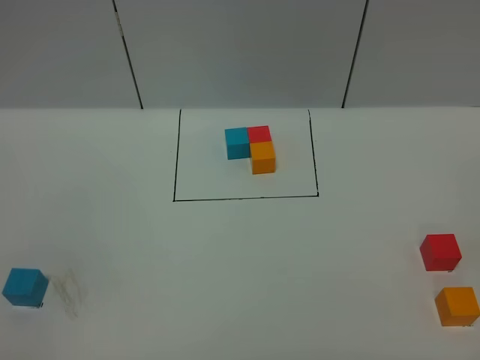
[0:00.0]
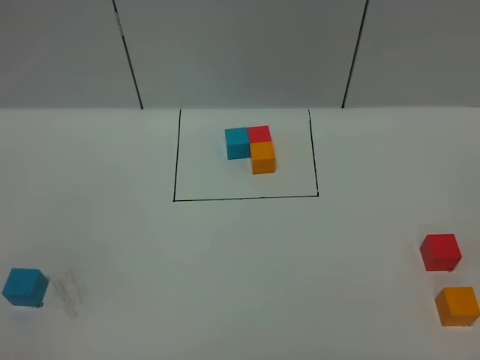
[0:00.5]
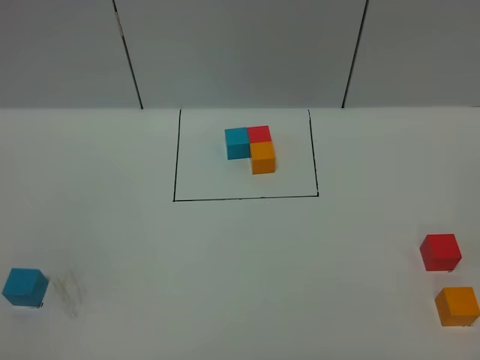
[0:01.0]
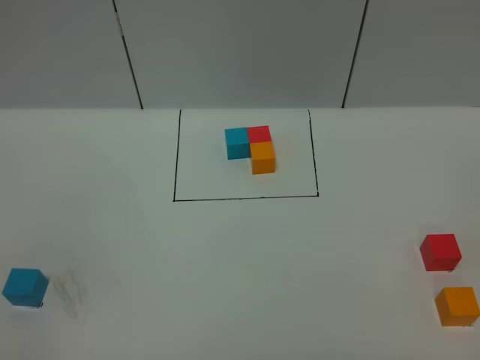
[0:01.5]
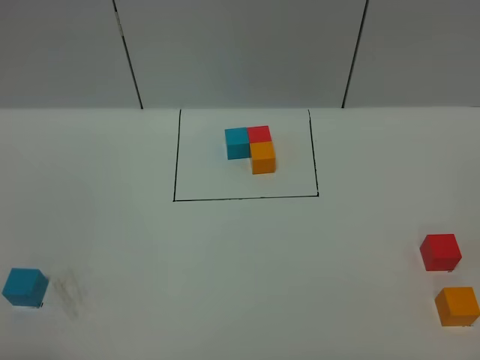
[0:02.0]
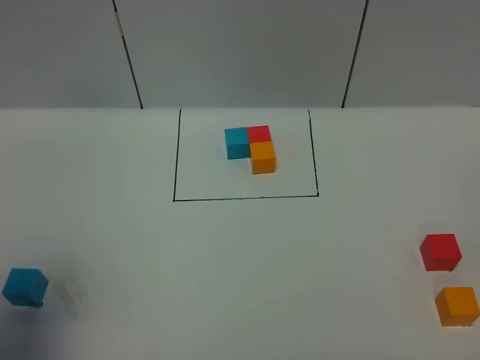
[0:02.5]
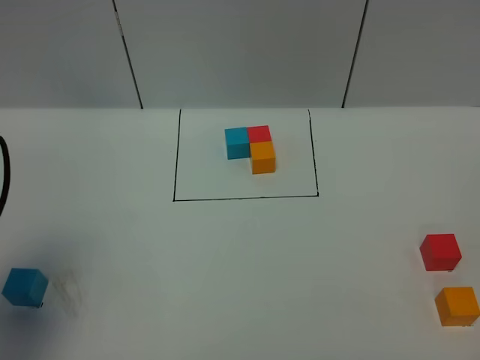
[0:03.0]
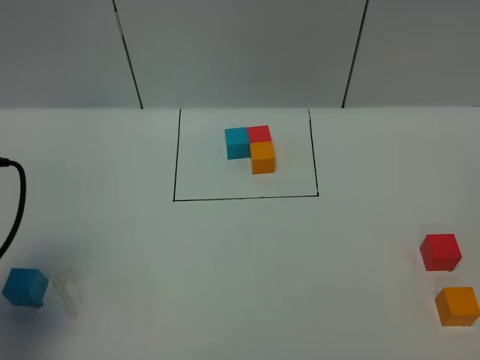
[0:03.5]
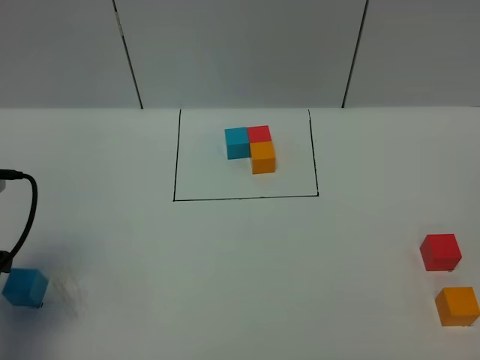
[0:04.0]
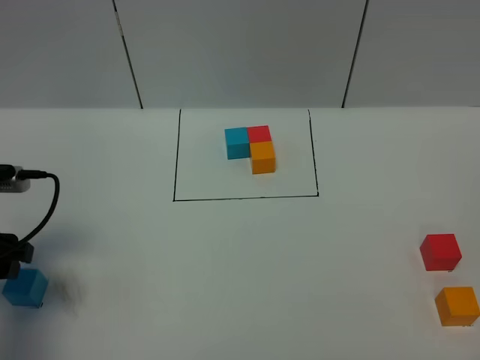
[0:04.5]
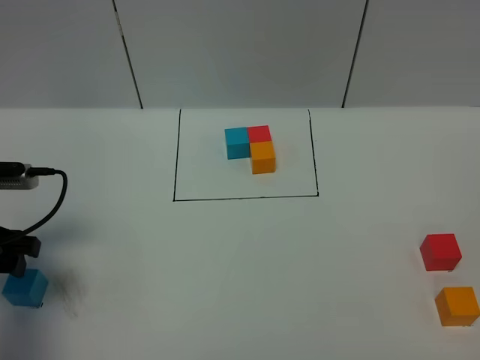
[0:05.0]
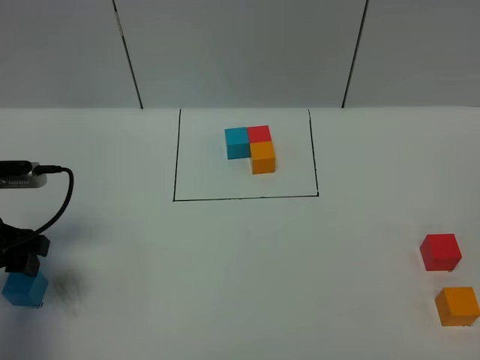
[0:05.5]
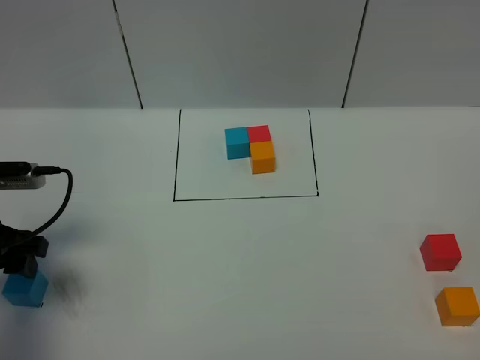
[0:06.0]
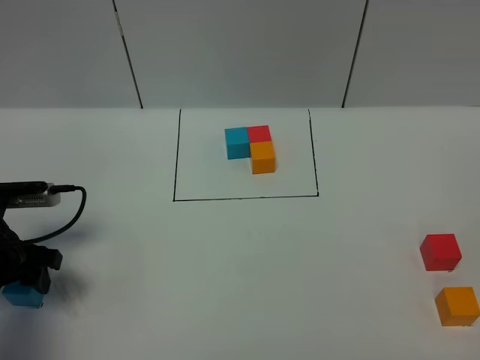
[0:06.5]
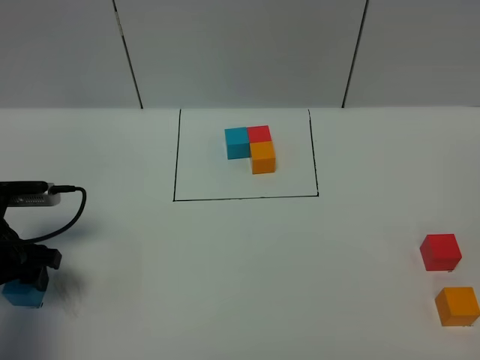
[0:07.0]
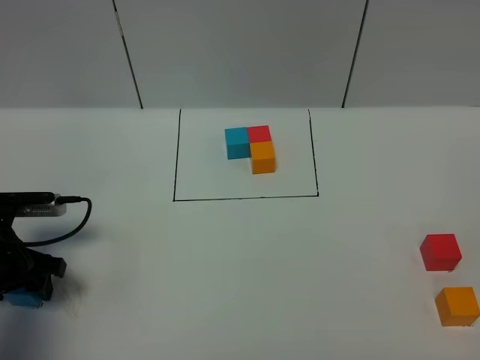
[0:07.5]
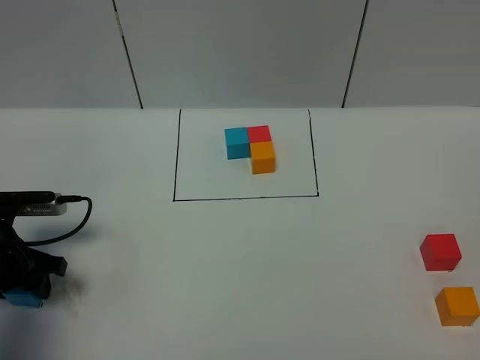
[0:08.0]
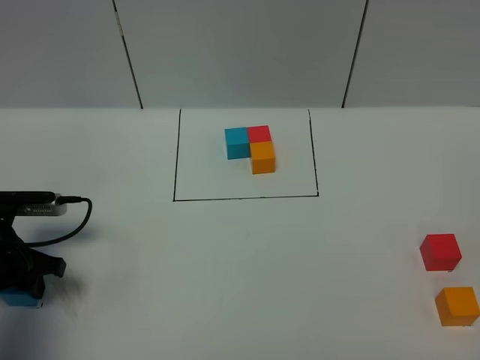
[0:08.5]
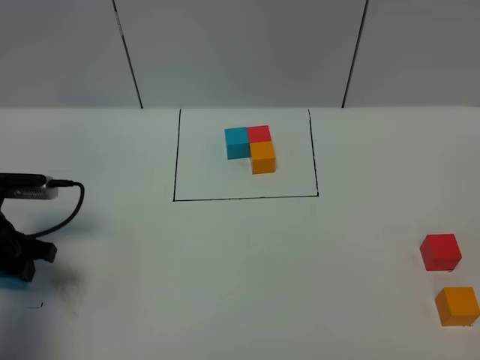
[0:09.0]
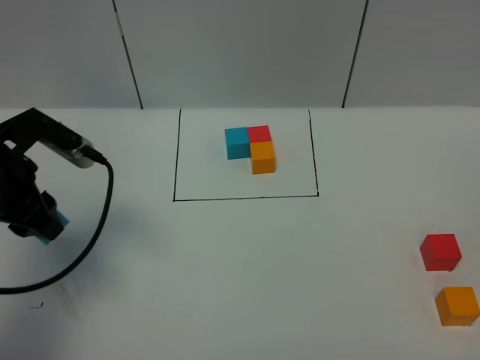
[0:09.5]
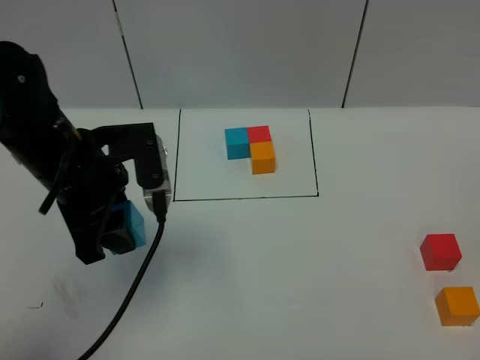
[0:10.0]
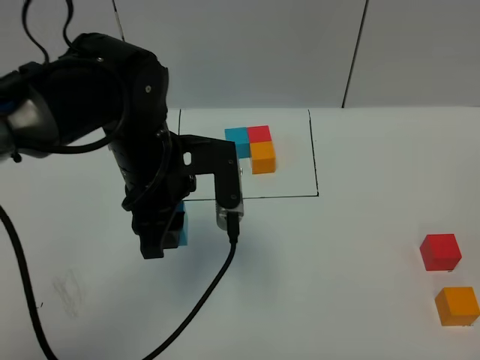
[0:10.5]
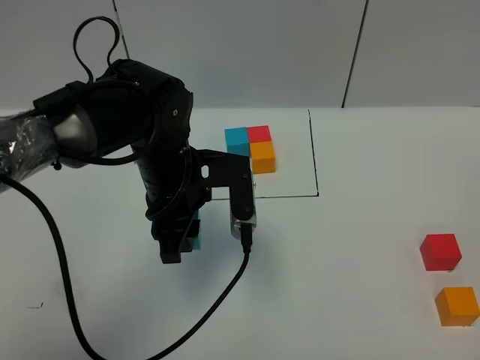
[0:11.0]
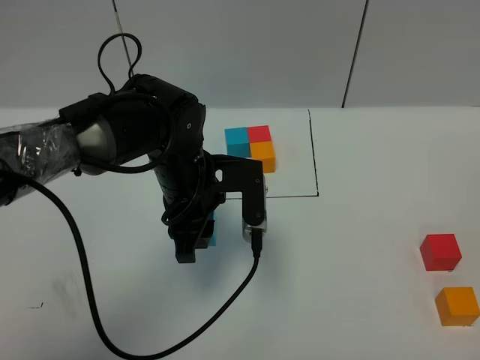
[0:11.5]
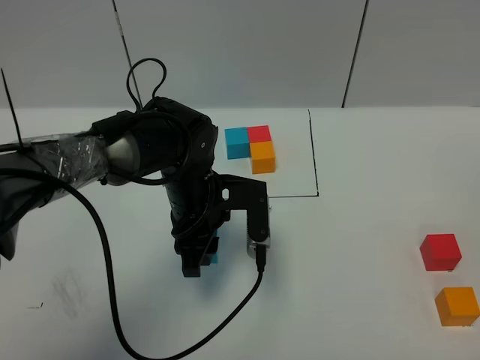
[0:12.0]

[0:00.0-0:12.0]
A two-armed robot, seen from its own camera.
Task of the whole recording: According to the building block template in front, assemble the scattered blocks together.
0:02.0 to 0:04.0: The left gripper moves forward and downward, about 20 cm.
0:04.0 to 0:06.0: The left gripper goes about 5 cm forward.
0:06.0 to 0:08.0: The left gripper heads downward, covering roughly 5 cm.
0:08.0 to 0:10.0: The left gripper moves to the right and upward, some 20 cm, and closes its fingers.
0:10.0 to 0:12.0: The left gripper goes approximately 15 cm to the right and downward.

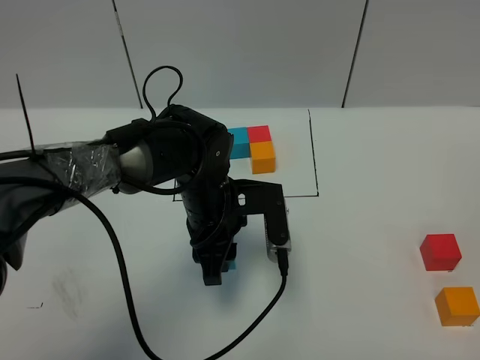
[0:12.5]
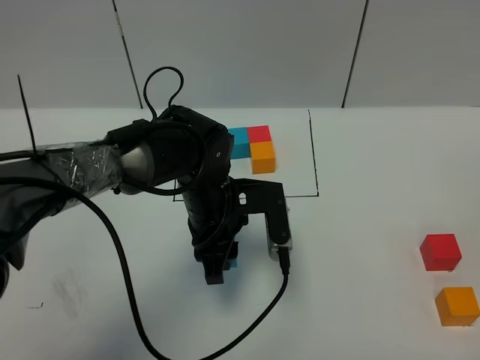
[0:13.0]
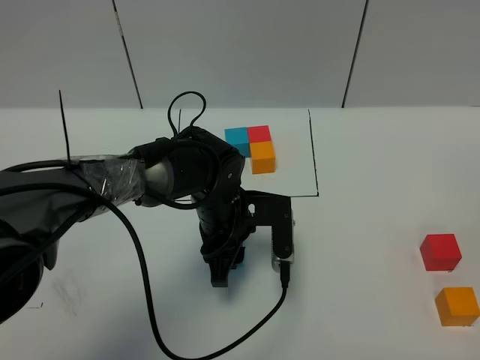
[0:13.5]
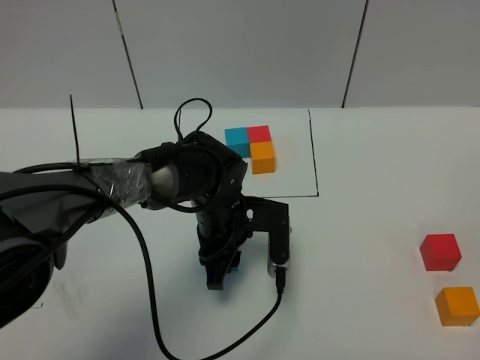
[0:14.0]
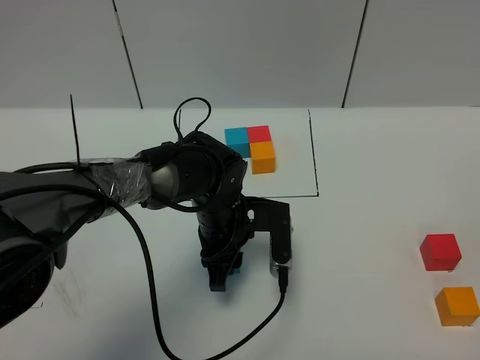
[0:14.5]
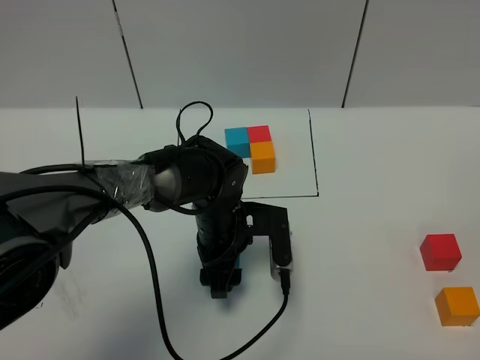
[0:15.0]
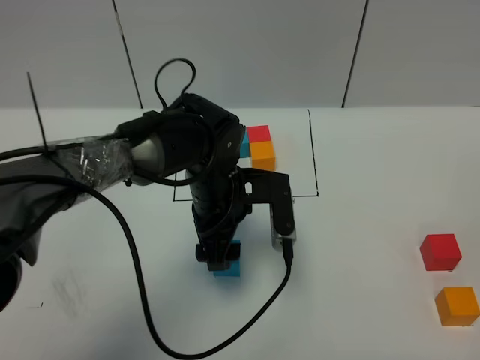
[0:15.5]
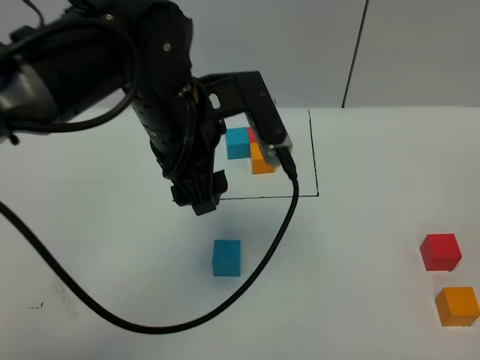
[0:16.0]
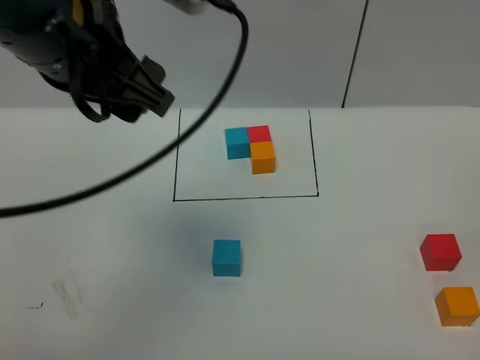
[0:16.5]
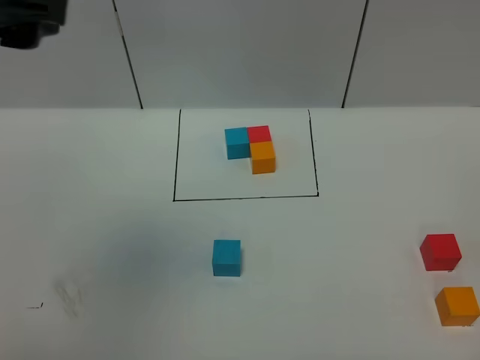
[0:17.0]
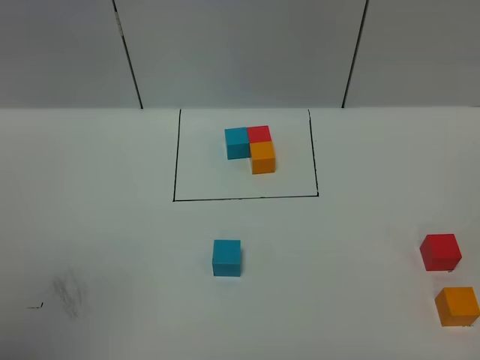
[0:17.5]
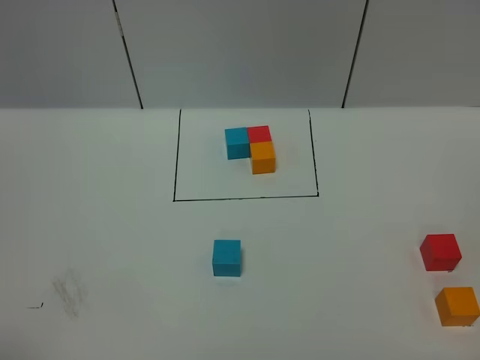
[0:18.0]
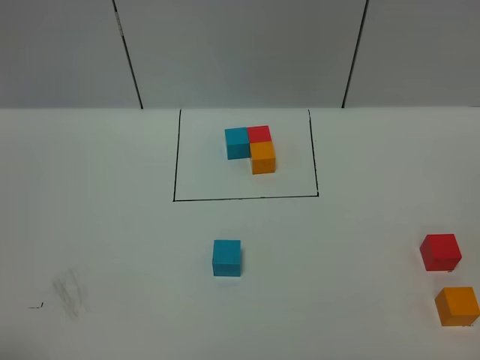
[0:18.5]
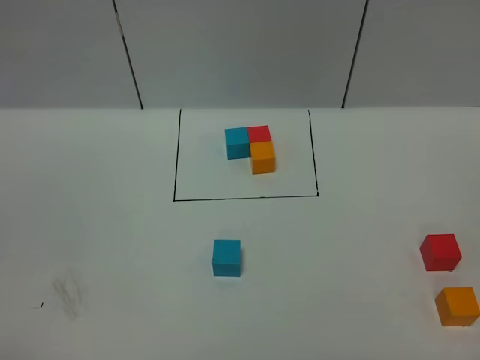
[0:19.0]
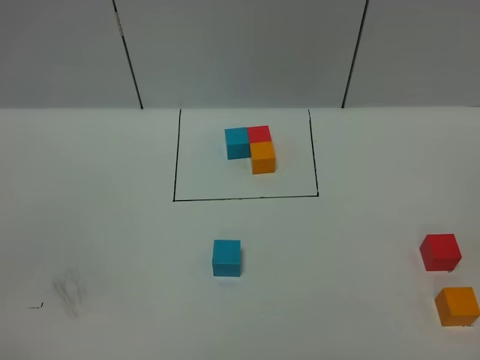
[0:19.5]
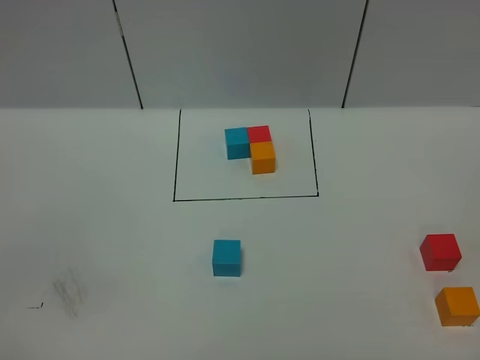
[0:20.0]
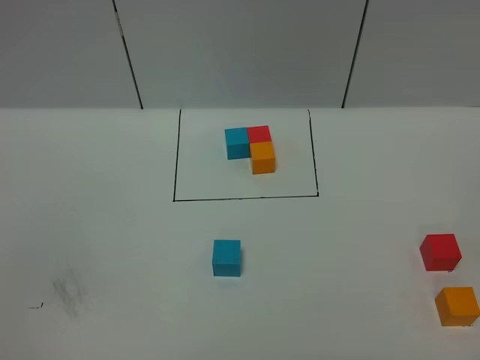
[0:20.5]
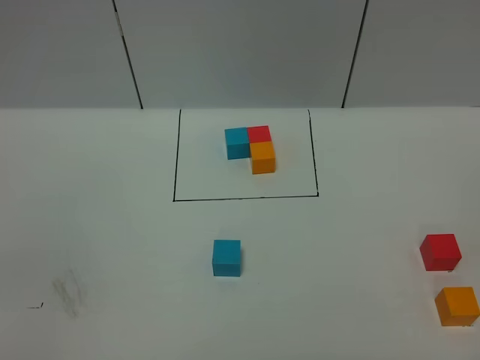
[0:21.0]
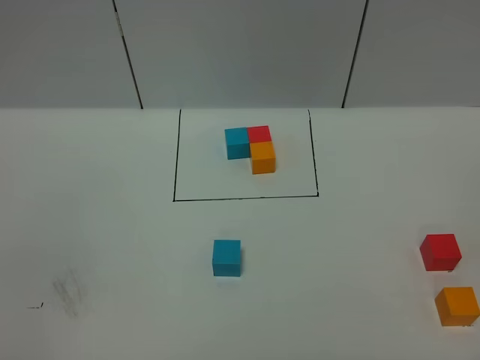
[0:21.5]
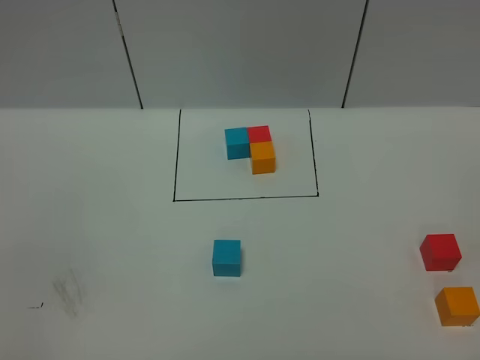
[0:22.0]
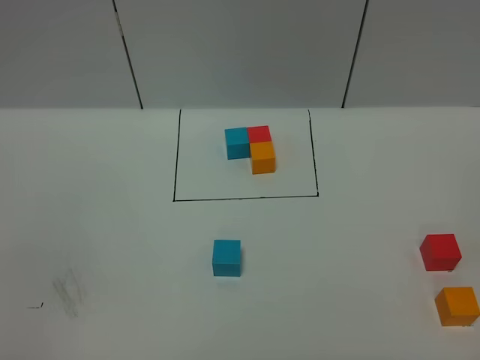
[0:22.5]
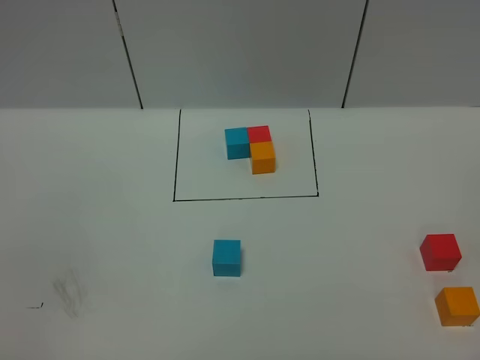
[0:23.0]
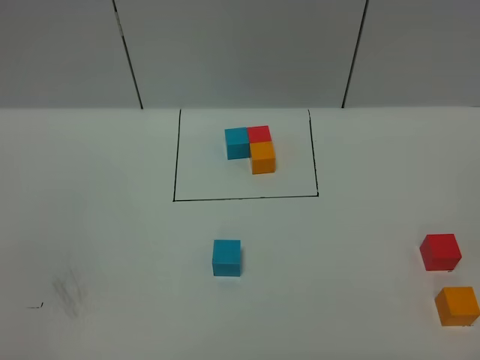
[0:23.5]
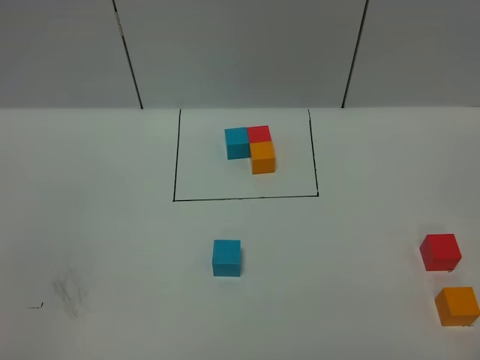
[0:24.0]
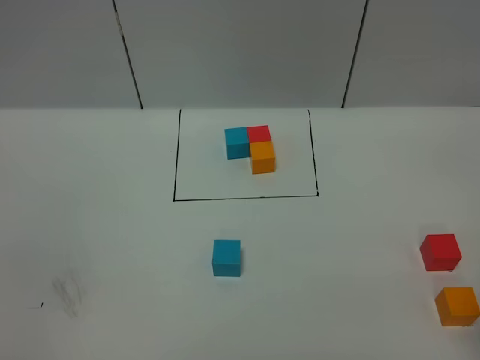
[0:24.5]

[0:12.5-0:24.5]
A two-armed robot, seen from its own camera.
Task of the whole recording: According to the building block template in front, assemble the scattered blocks together.
Step, 0:12.5 to 0:15.0: Put the blue cube in the center of the table.
0:12.5 to 0:14.5: The grippers stay close to where they were, moving slightly.
0:14.5 to 0:16.5: The left gripper moves upward, some 30 cm, and opens.
0:16.5 to 0:18.5: The left gripper travels backward and to the left by about 35 cm.

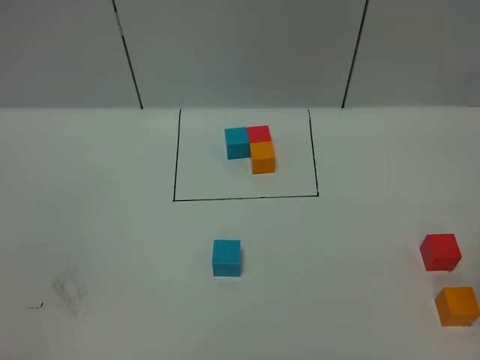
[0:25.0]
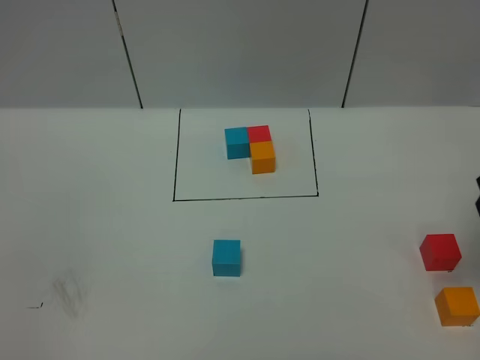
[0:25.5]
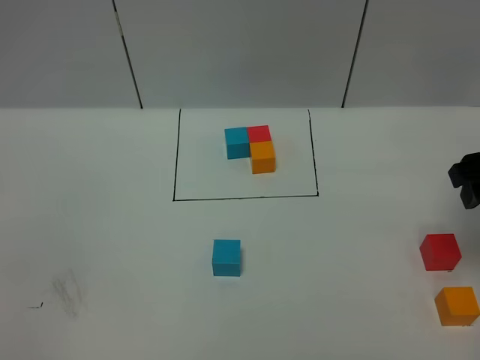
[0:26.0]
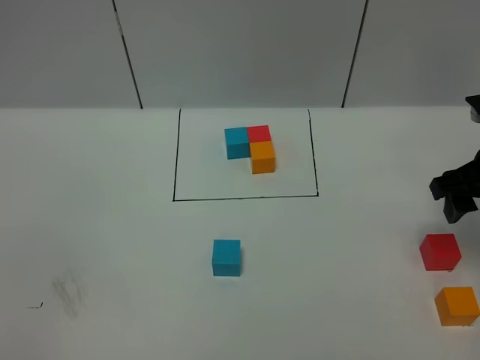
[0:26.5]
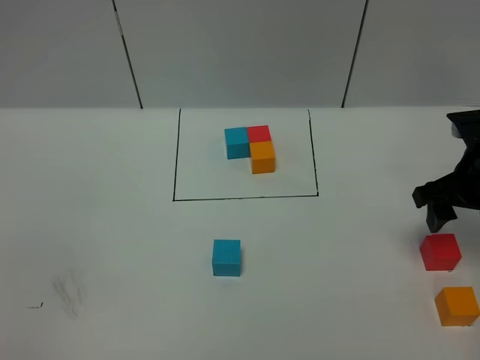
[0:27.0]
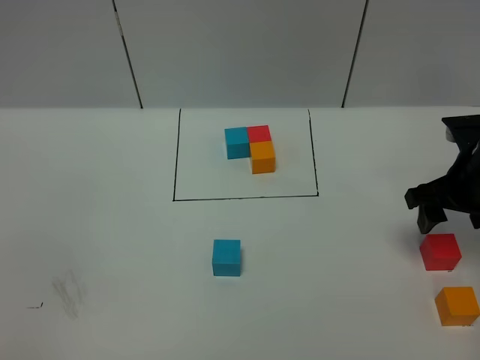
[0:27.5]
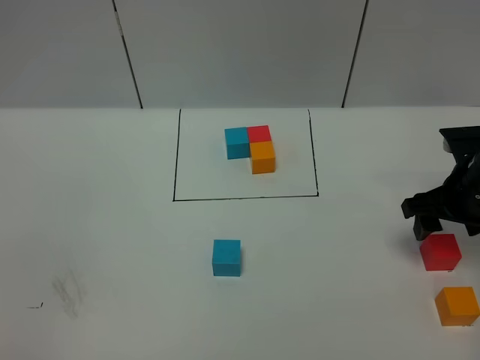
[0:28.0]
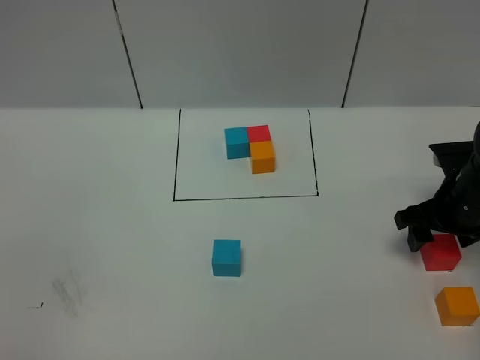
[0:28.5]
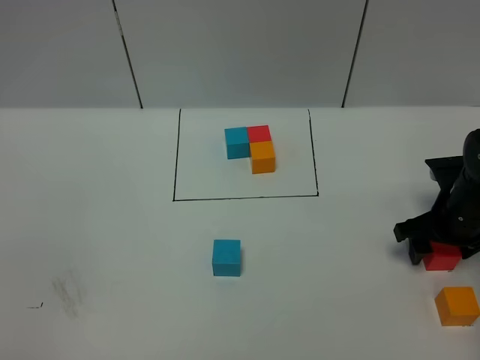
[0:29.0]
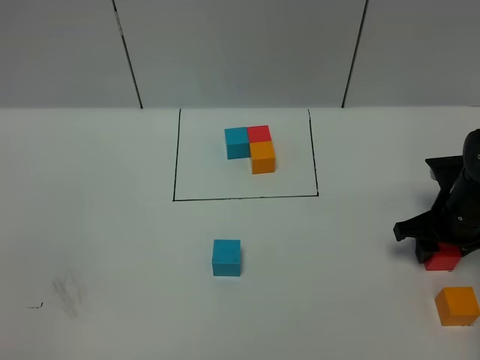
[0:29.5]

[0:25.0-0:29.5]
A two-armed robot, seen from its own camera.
Task of the whole recording: According to the building block template in front, assemble the scattered blocks together.
0:25.0 to 0:27.0: The right gripper heads forward and downward, covering roughly 20 cm.
0:27.0 to 0:29.5: The right gripper travels downward by about 10 cm, and closes its fingers.
